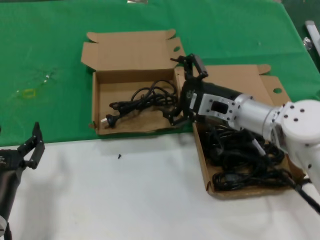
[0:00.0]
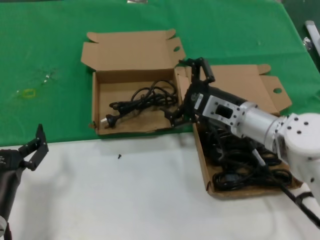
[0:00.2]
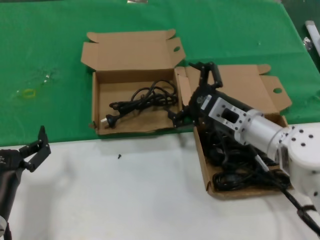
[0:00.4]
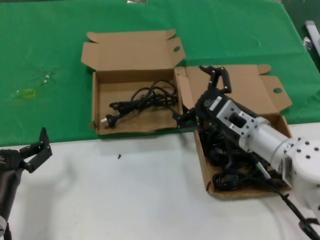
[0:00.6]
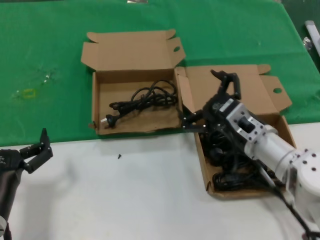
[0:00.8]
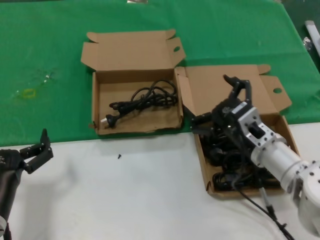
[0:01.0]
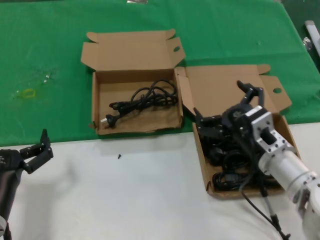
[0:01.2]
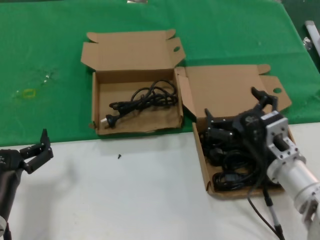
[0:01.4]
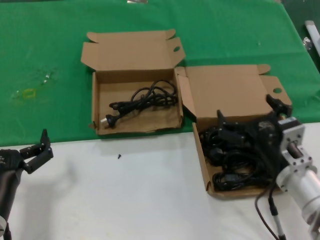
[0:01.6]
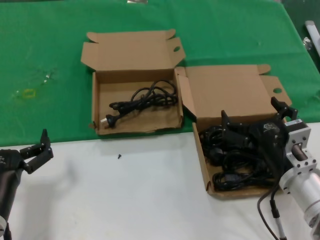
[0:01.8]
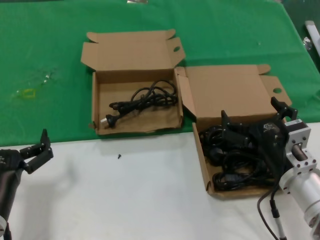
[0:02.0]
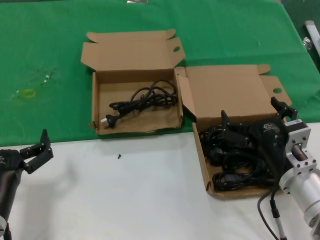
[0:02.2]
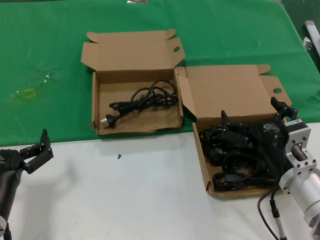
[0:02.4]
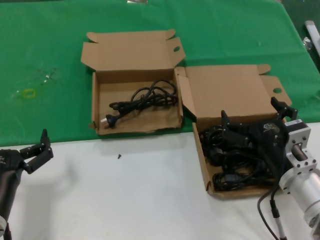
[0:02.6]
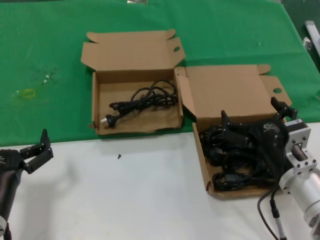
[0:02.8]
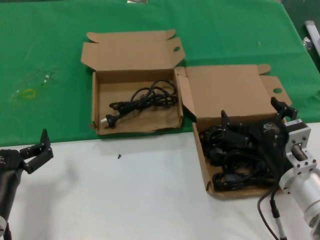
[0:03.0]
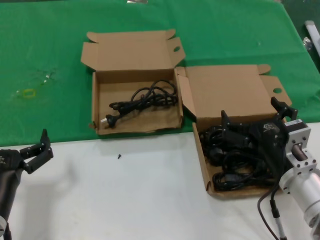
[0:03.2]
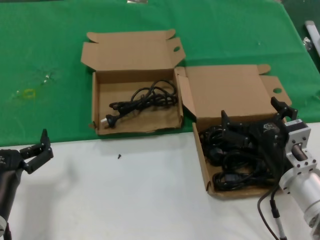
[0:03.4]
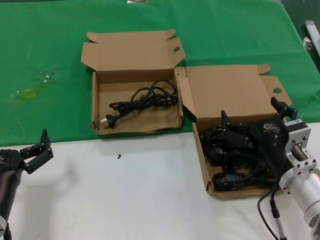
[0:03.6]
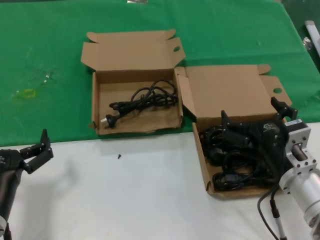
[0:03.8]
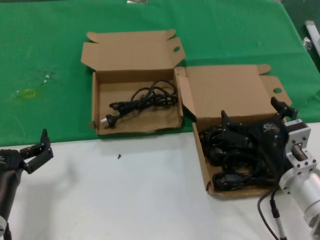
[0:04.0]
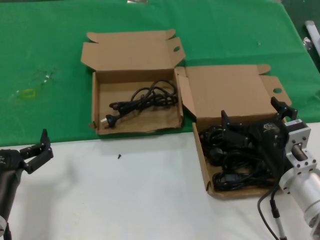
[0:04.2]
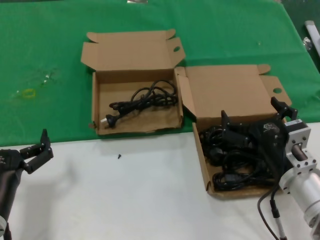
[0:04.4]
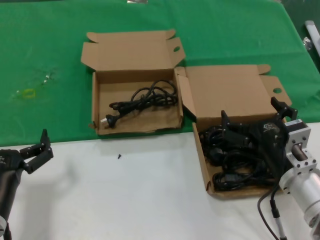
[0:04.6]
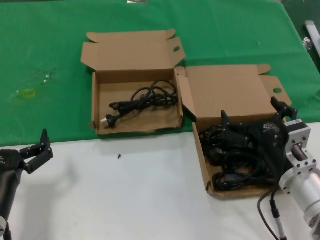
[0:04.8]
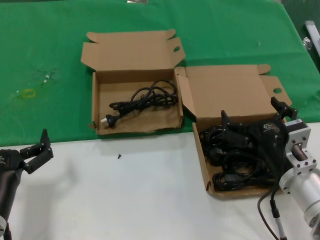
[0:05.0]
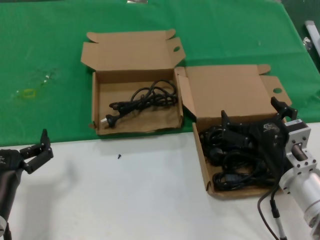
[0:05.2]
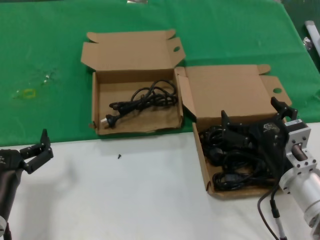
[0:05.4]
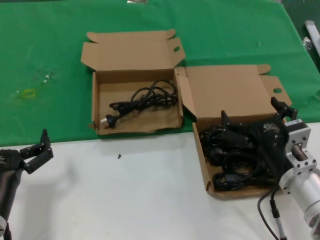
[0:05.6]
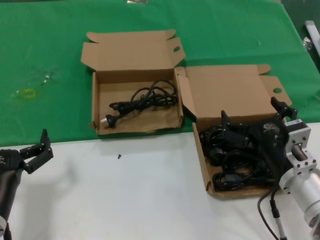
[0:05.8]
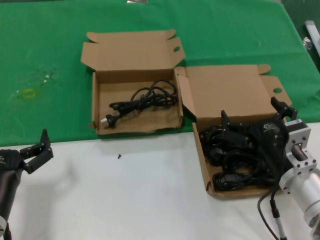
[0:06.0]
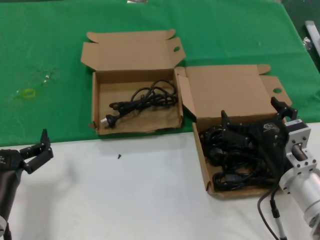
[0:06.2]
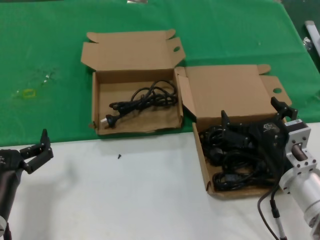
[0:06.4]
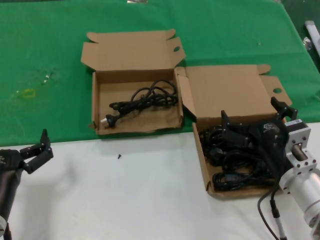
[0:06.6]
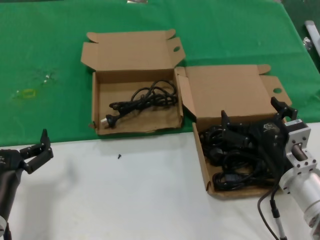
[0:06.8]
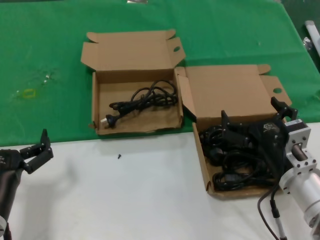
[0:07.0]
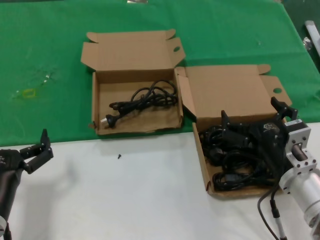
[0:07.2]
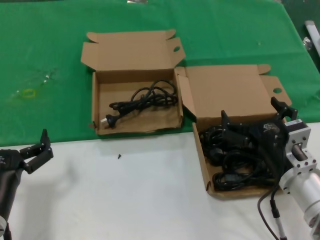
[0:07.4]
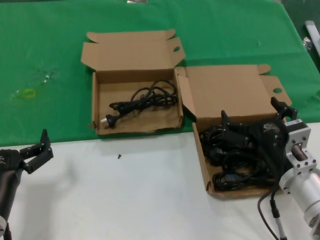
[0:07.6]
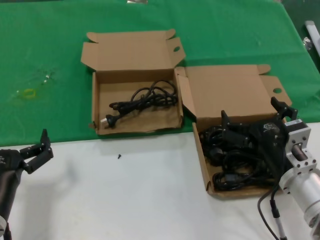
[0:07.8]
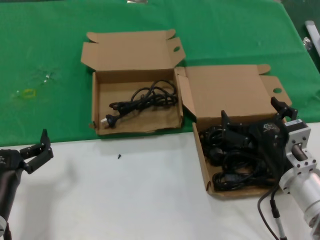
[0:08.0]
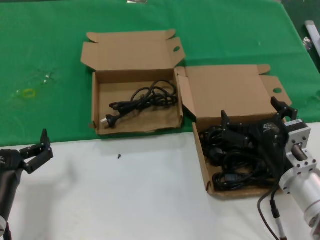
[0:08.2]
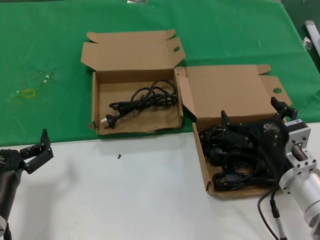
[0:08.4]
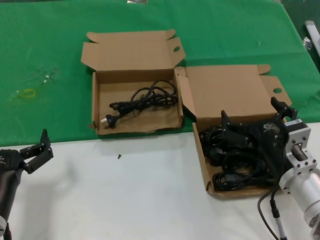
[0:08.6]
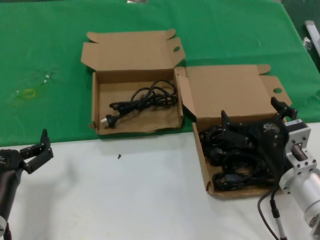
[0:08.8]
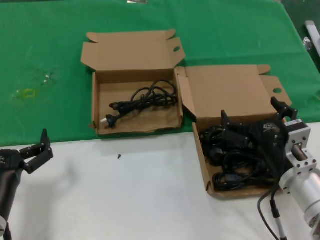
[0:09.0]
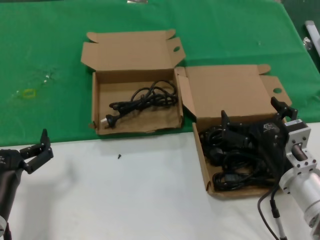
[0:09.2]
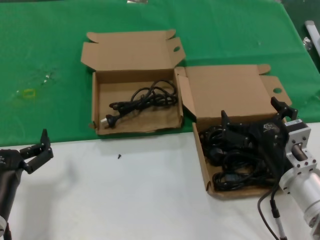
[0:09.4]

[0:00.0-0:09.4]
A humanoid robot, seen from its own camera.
Task of the whole recording: take the parts from the box containing them and put them into an empty box.
0:00.0 to 0:01.6: The right hand travels backward and downward by approximately 15 cm.
0:01.6 to 0:09.4: Both hands stay put.

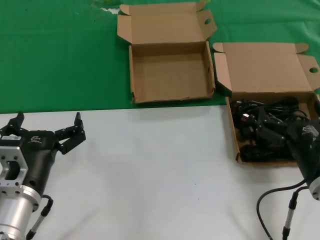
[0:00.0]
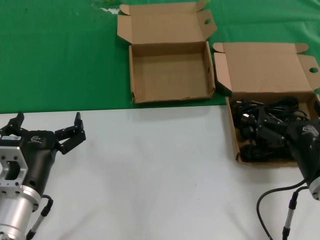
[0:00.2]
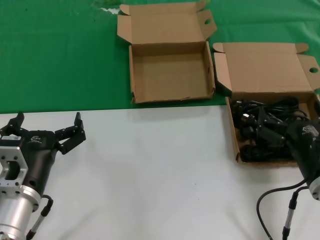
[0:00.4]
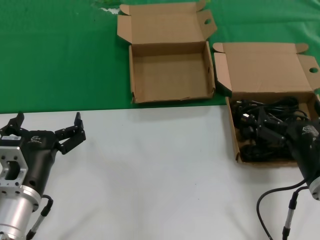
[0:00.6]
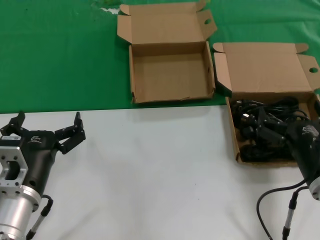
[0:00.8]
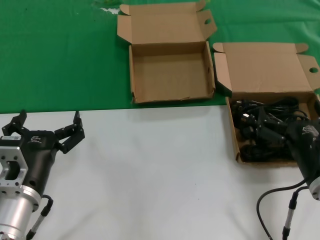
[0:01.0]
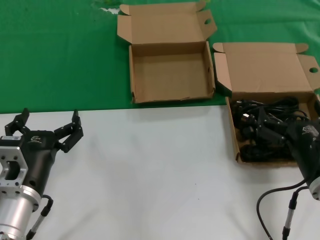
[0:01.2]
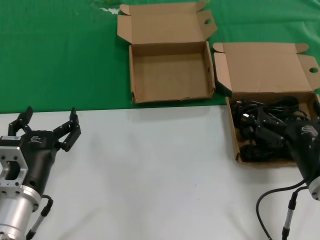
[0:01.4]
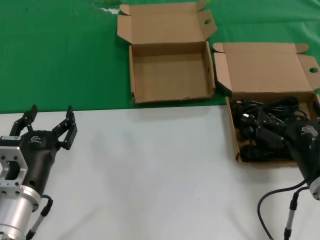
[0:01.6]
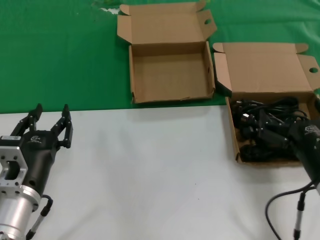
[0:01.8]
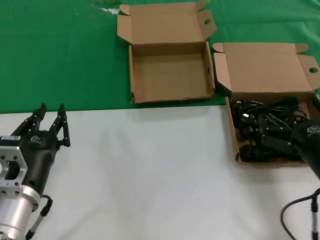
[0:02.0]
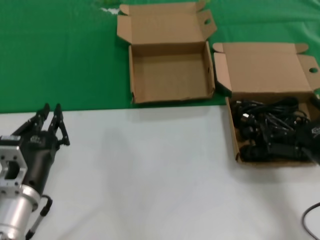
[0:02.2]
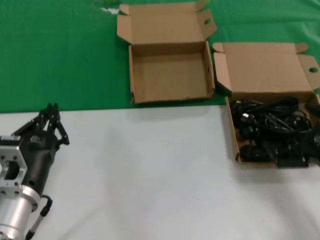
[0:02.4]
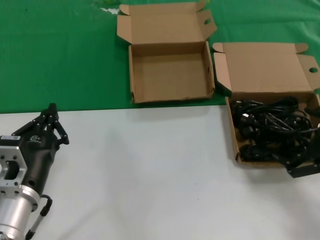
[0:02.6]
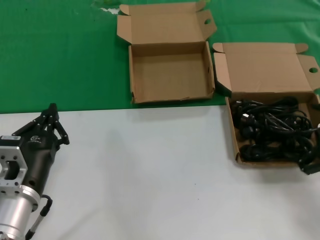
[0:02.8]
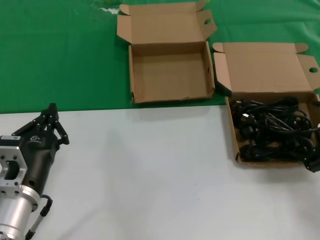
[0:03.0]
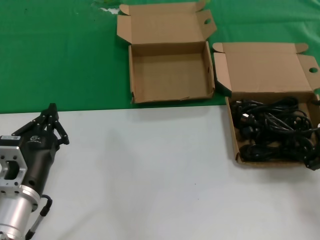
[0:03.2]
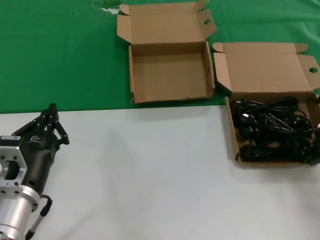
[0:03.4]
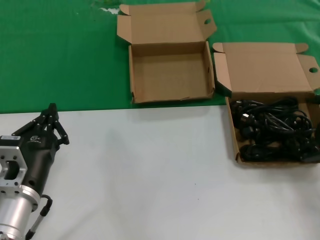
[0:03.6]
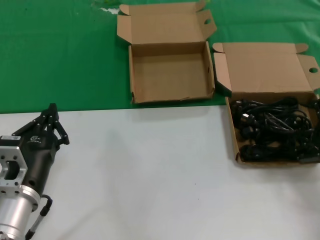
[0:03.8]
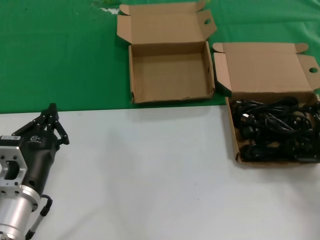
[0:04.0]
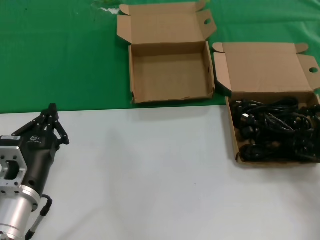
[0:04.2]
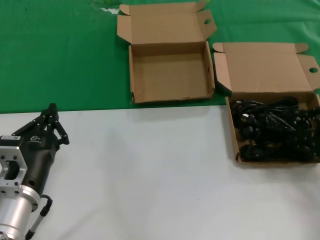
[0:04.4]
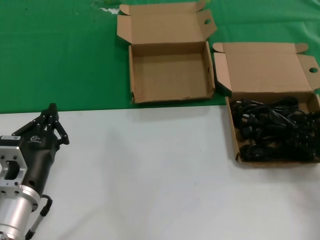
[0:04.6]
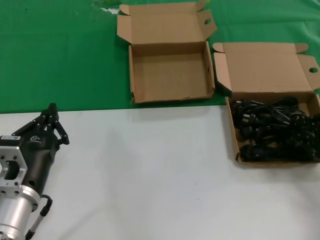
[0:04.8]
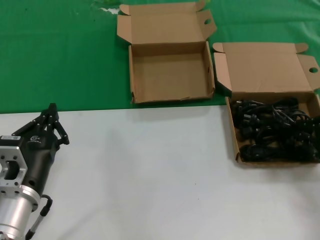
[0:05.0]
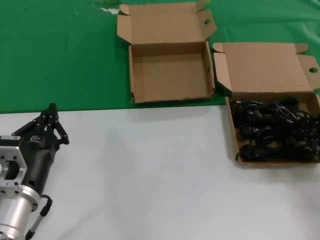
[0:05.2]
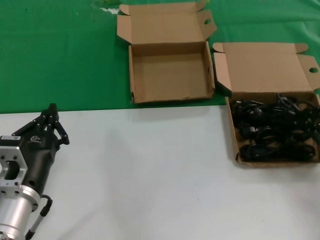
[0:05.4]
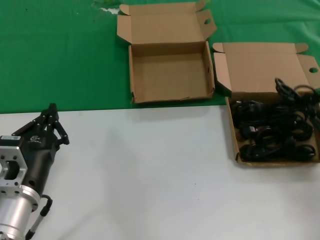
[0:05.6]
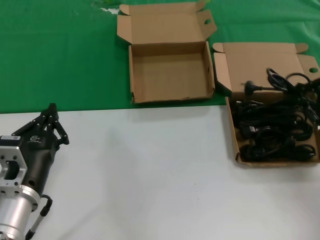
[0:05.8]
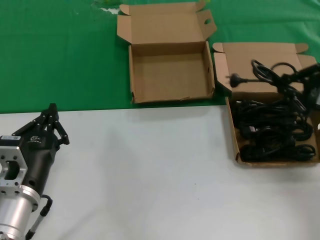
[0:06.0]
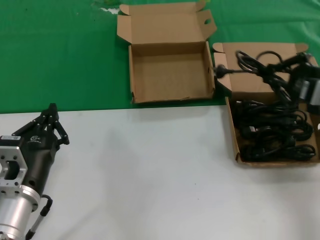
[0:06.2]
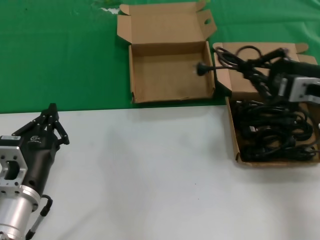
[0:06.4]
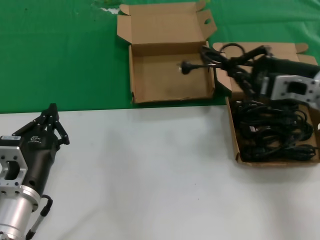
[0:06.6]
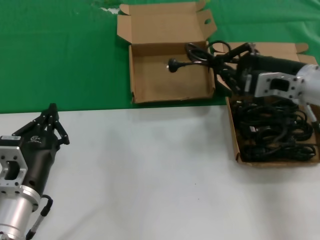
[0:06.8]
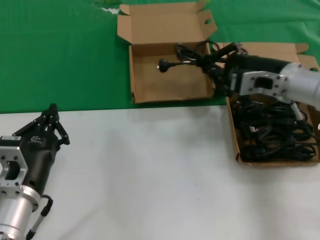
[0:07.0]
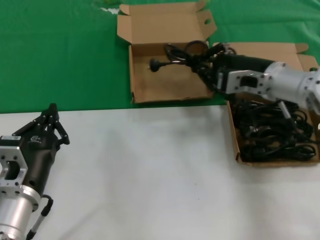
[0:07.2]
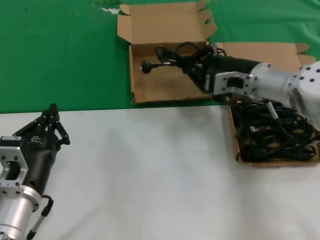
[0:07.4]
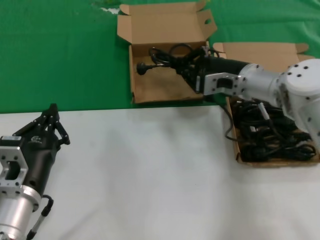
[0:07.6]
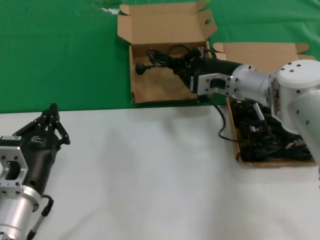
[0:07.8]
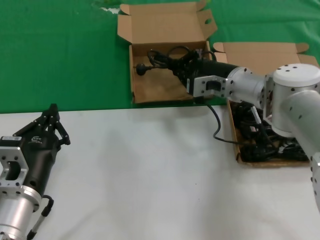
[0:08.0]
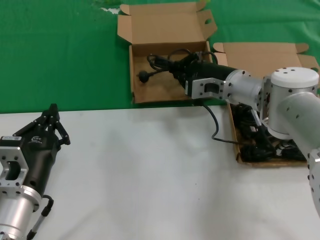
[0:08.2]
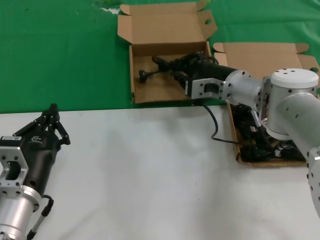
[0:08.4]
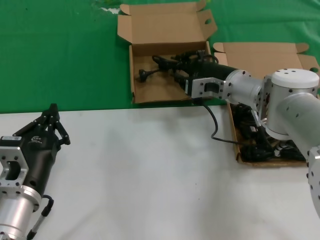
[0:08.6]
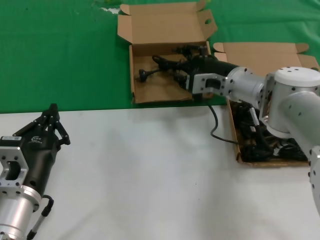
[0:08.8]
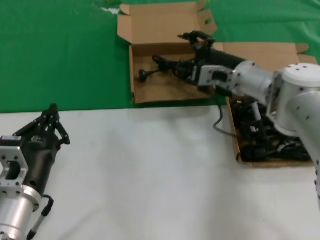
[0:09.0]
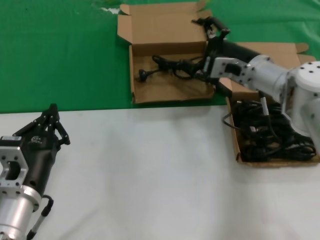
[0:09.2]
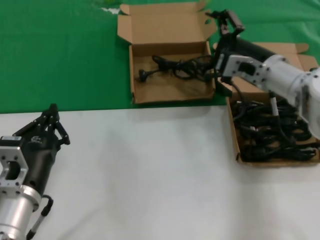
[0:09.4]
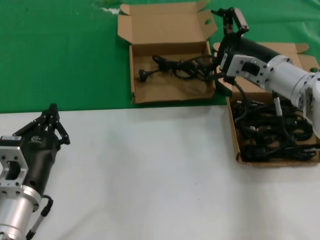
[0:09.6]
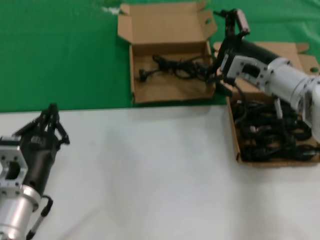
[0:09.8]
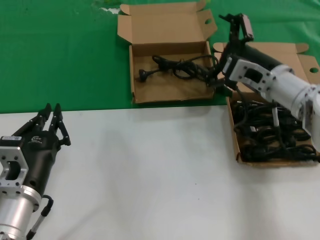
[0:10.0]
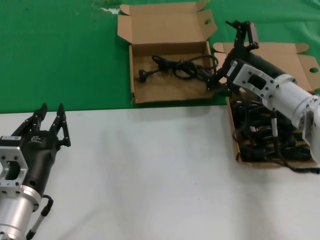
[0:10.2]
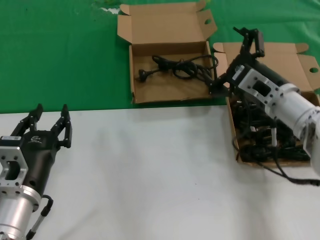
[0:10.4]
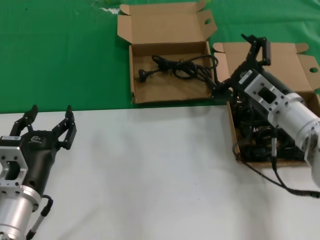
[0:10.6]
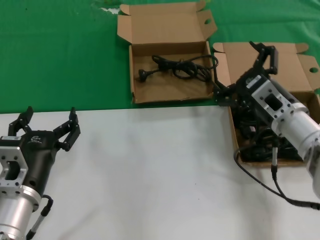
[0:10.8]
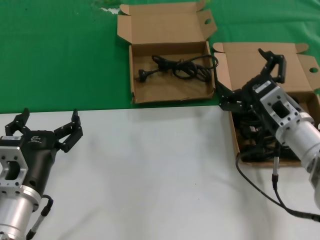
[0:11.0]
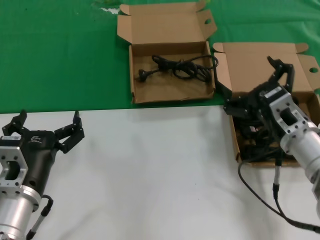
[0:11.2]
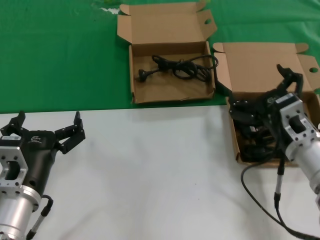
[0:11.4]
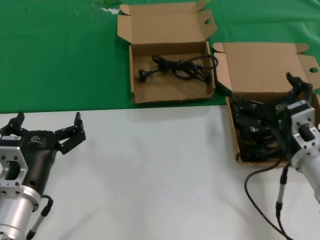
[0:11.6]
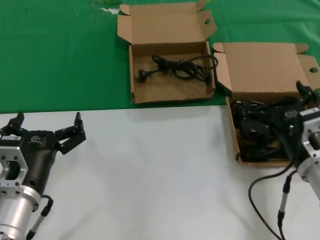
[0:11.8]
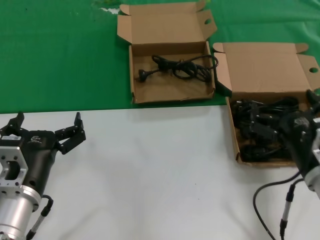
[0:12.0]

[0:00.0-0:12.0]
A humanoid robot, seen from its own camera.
Task of the whole recording: take the parts from the box containing them and put them into an empty box.
Step, 0:00.0 to 0:05.0: Grasp the data cable.
Step, 0:05.2 to 0:08.4: Place the data cable in the another box.
0:00.0 to 0:01.6: Both hands stay about where they are.
0:01.6 to 0:03.0: The right hand goes about 20 cm to the right and upward.
0:03.0 to 0:04.4: The right hand ends up some 5 cm from where it was.
0:04.4 to 0:06.0: The right hand travels upward by some 5 cm.
0:06.0 to 0:07.6: The right hand moves to the left and forward, about 20 cm.
0:07.6 to 0:09.0: The hands make only small movements.
0:09.0 to 0:10.4: The right hand heads backward, covering approximately 10 cm.
0:10.4 to 0:12.0: The right hand is displaced backward and downward by roughly 15 cm.

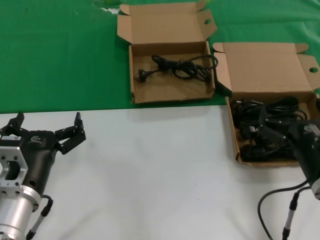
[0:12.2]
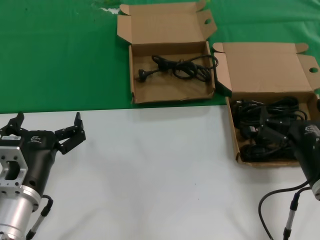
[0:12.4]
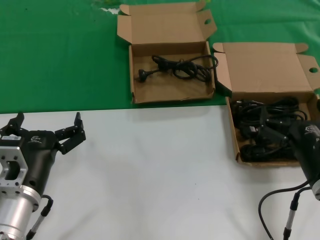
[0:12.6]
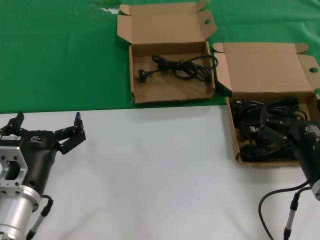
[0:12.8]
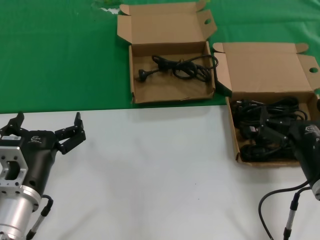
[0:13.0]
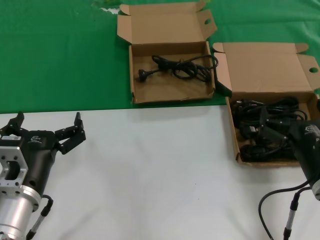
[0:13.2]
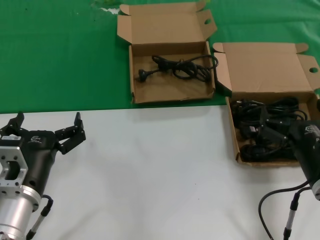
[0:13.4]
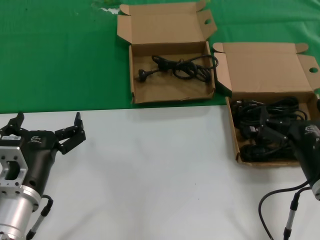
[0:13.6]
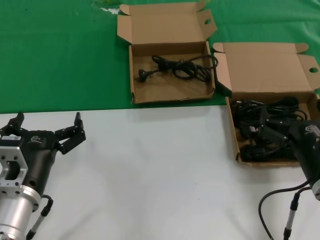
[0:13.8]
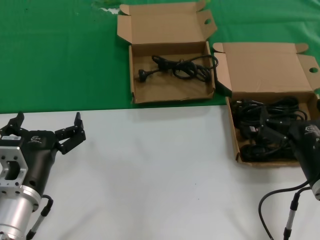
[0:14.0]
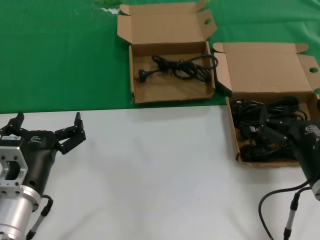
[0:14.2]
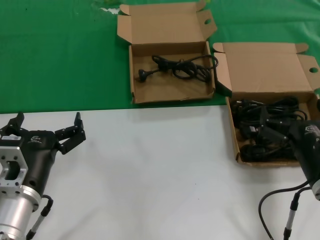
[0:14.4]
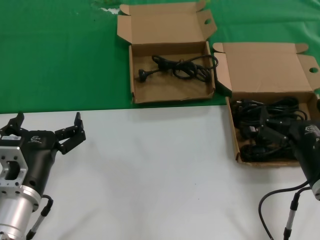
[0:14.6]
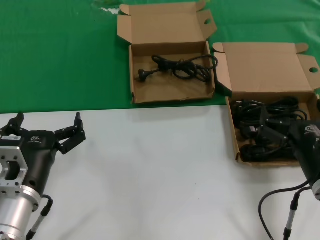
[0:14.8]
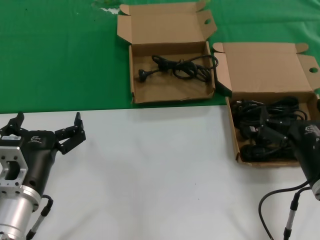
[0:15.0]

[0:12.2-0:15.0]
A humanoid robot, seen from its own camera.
Task of the whole recording: take the parts from the box containing them and put them into an empty box.
0:12.2 to 0:15.0: Neither hand changes place.
